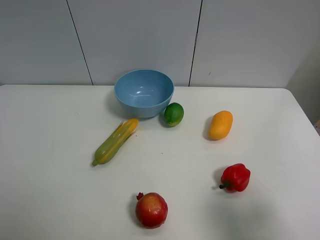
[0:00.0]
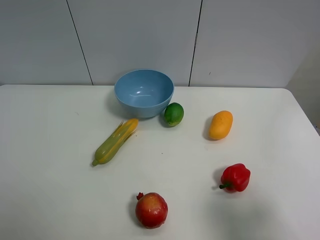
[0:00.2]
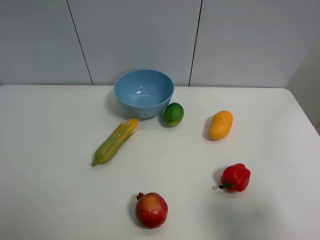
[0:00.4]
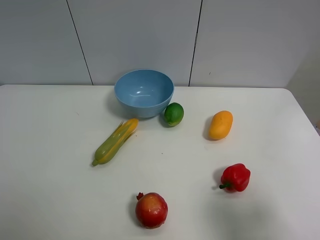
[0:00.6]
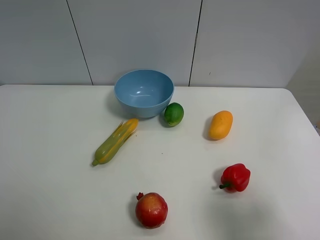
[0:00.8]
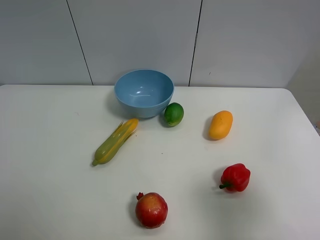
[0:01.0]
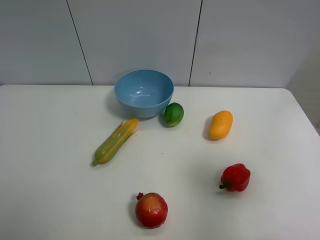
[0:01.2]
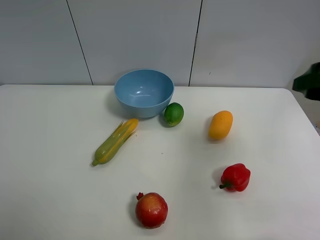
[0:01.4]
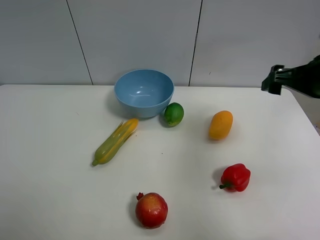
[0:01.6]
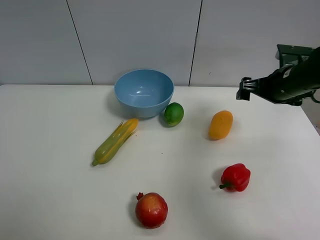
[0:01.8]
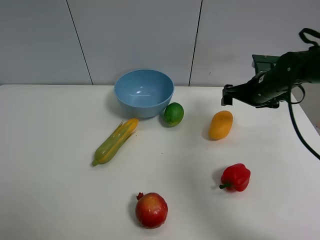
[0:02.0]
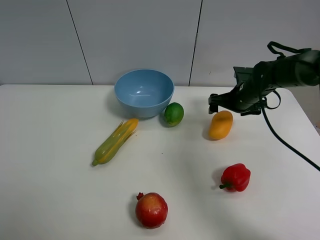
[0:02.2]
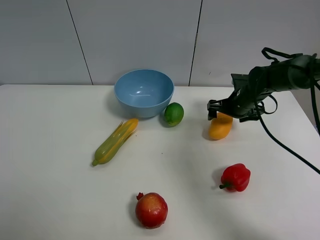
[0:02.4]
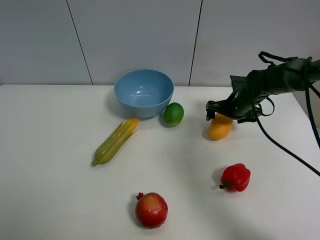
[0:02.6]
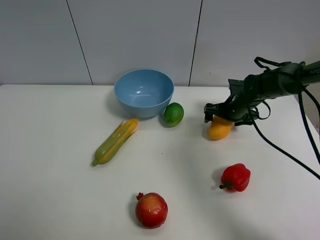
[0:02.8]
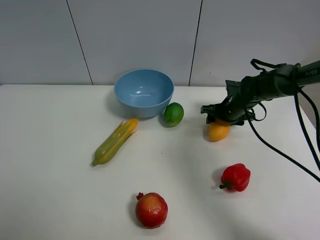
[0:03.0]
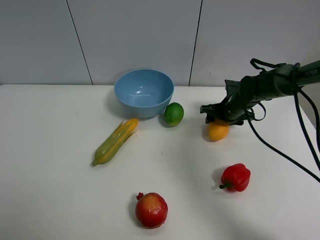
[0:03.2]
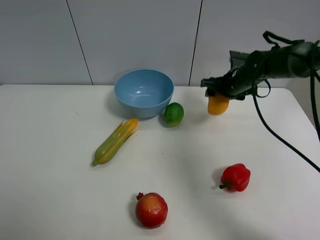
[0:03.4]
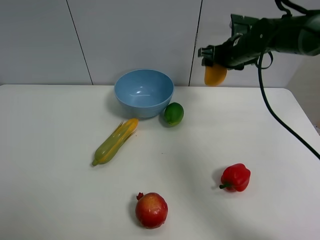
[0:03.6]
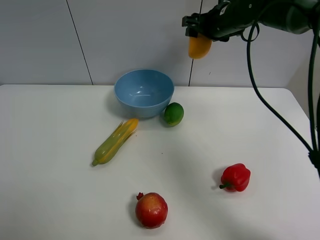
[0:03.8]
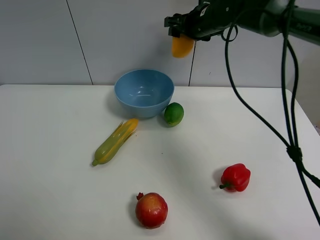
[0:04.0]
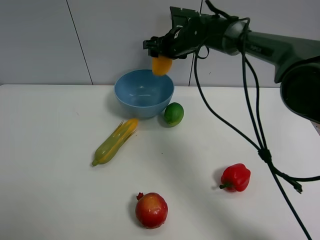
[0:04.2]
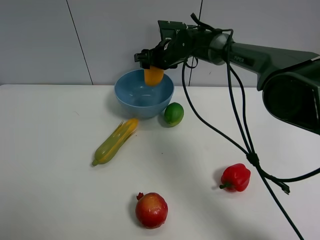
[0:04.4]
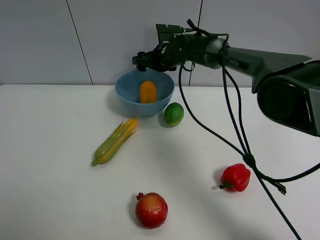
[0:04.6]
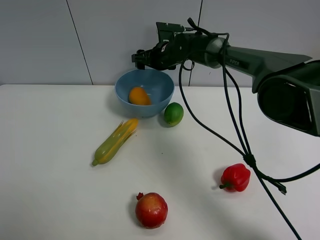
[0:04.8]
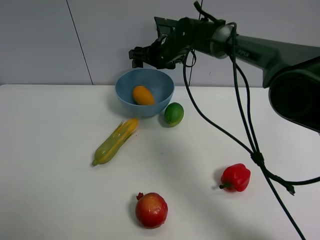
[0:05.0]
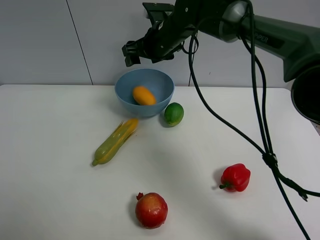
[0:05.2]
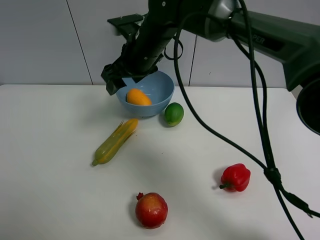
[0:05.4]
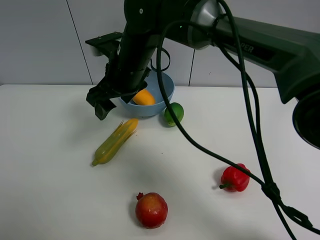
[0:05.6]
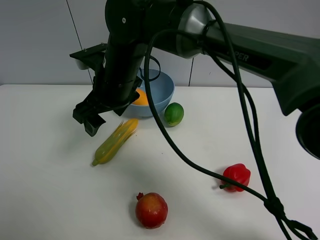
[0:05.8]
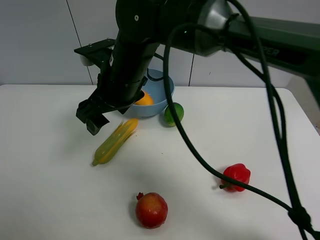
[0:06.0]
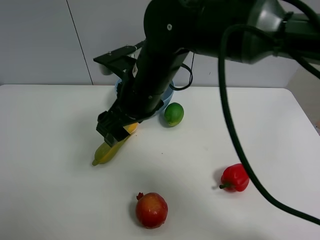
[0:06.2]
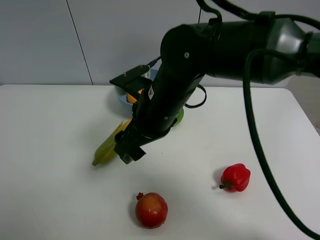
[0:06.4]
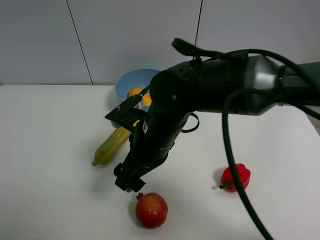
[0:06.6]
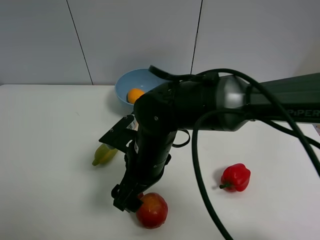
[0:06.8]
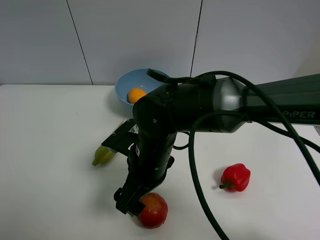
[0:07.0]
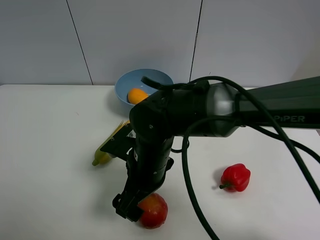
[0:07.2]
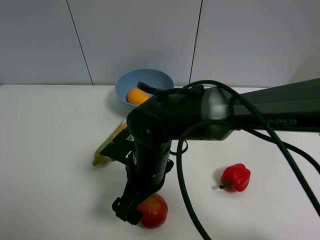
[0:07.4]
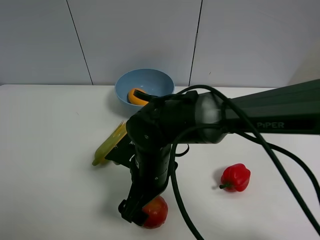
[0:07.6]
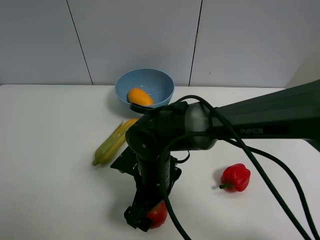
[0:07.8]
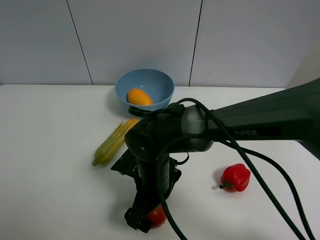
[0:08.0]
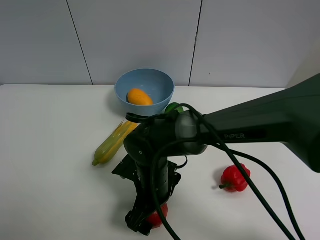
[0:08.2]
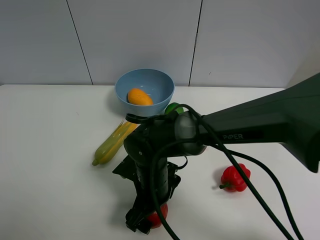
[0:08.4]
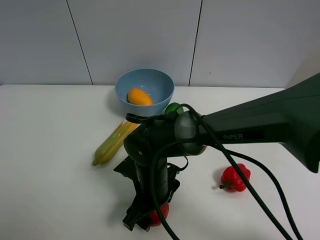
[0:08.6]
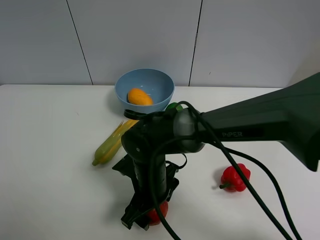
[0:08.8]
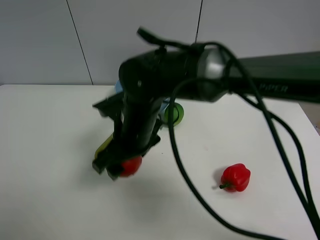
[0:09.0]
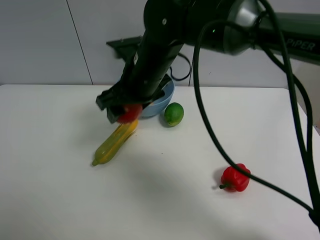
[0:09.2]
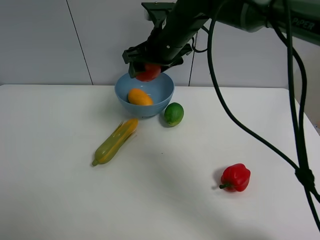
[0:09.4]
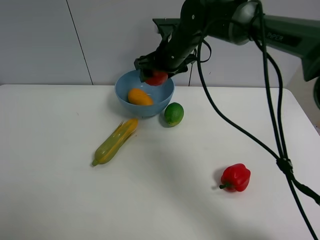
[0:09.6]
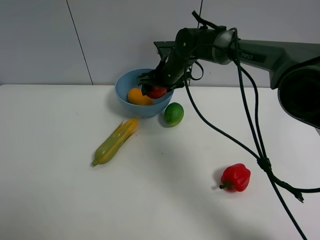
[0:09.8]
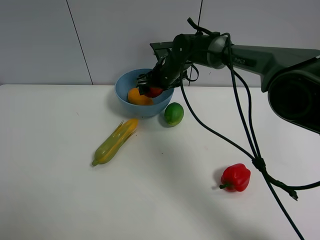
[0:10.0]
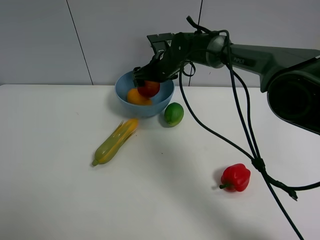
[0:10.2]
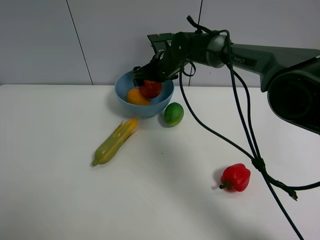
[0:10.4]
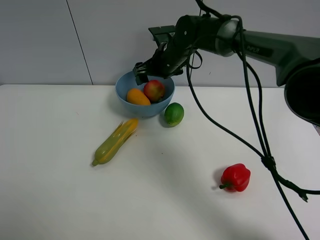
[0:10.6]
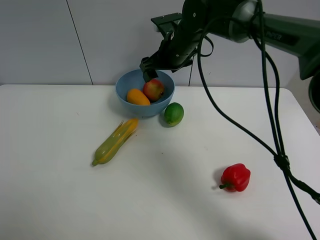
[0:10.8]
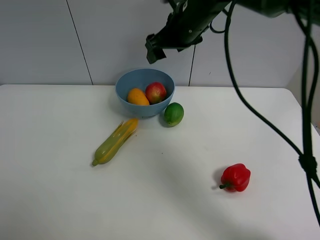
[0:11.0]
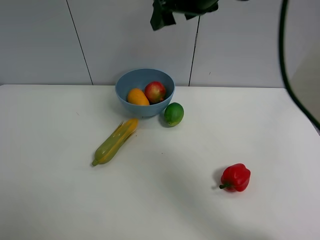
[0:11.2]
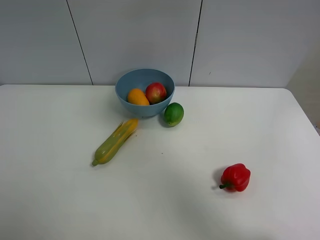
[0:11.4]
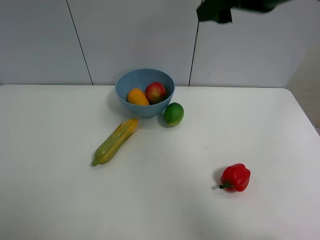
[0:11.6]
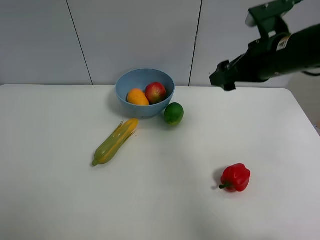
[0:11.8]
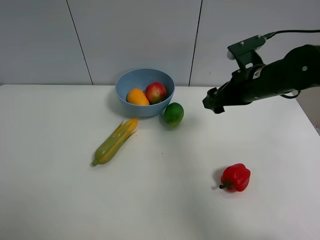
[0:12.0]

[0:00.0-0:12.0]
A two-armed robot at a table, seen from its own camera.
Task of the whole recording: Put the three fruits on the table into a bowl.
Step, 0:00.0 to 0:03.0: Grasp the mango with right gripper.
Step, 0:03.2 to 0:04.6: Place the mango in the blue bowl with right gripper.
Step, 0:04.8 to 0:08.4: Grasp the pomegranate with right gripper.
Step, 0:08.6 to 0:10.4: Place the pomegranate in the blue bowl with right gripper.
0:00.0 to 0:01.6: The right gripper travels forward by about 25 cm.
0:01.6 to 0:03.0: The right gripper is displaced downward and forward by about 20 cm, and closes its fingers.
0:03.0 to 0:04.4: The right gripper is displaced to the left, upward and forward by roughly 20 cm.
0:04.4 to 0:06.0: The right gripper is displaced backward by roughly 20 cm, and opens up.
0:06.0 to 0:07.6: The right gripper shifts roughly 15 cm downward and backward, and opens up.
0:07.6 to 0:09.0: The right gripper is displaced upward and forward by some 10 cm, and closes up.
0:09.0 to 0:10.4: The right gripper heads forward, covering approximately 20 cm.
0:10.4 to 0:12.0: The right gripper moves to the right and backward, about 20 cm, and travels upward and back again, roughly 25 cm each way.

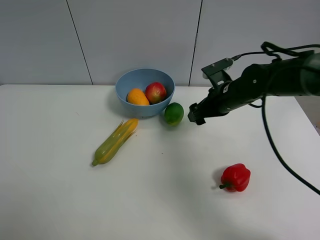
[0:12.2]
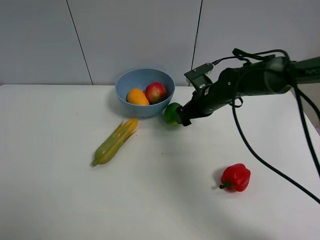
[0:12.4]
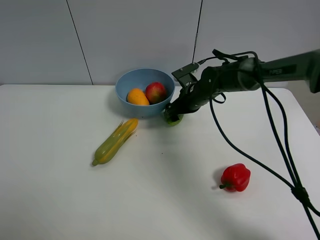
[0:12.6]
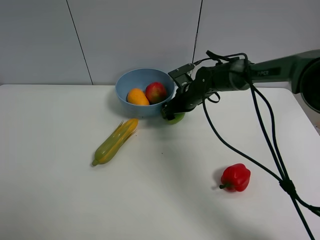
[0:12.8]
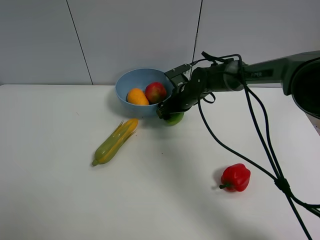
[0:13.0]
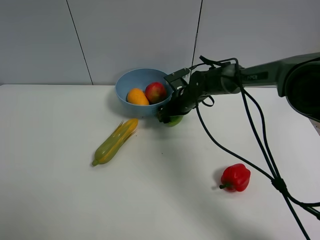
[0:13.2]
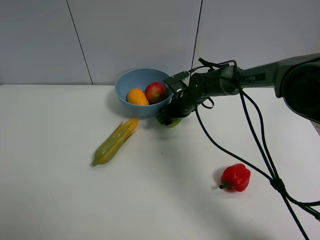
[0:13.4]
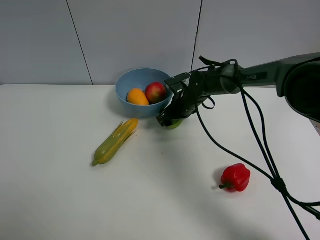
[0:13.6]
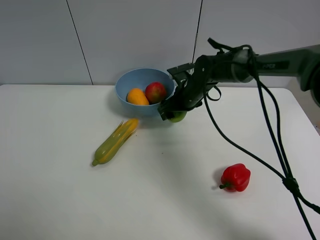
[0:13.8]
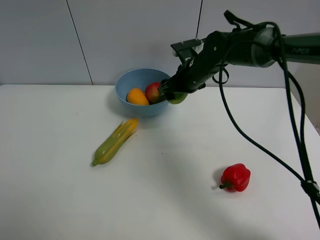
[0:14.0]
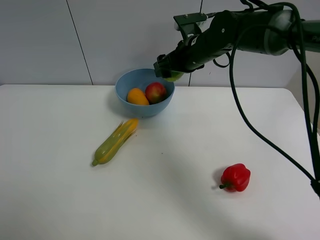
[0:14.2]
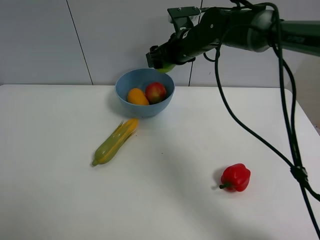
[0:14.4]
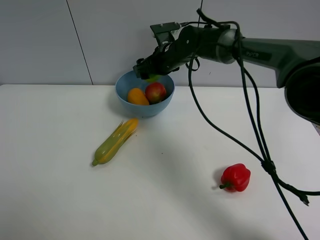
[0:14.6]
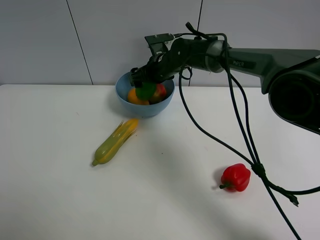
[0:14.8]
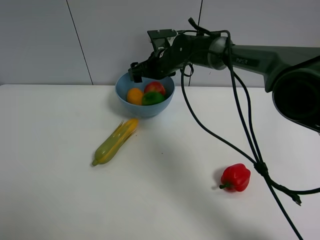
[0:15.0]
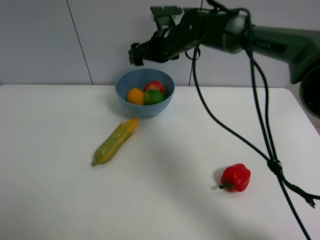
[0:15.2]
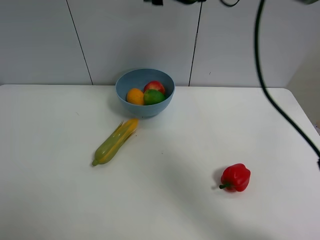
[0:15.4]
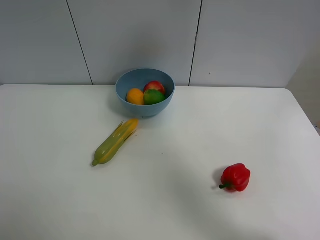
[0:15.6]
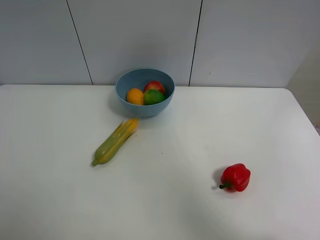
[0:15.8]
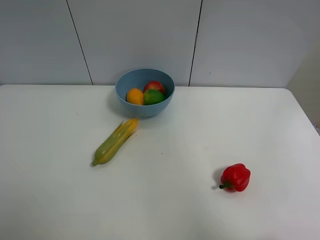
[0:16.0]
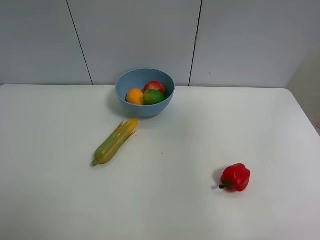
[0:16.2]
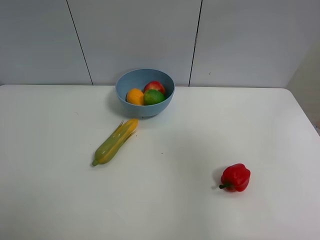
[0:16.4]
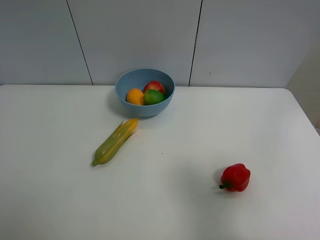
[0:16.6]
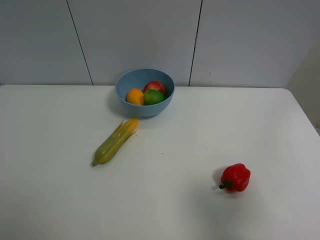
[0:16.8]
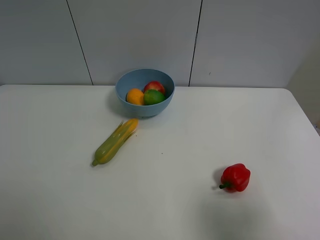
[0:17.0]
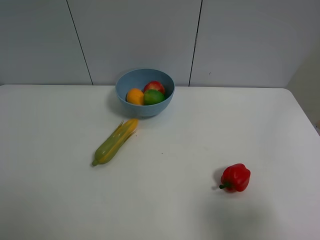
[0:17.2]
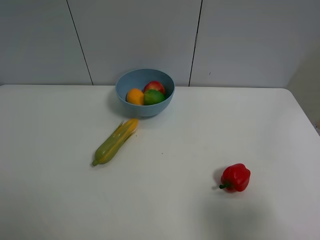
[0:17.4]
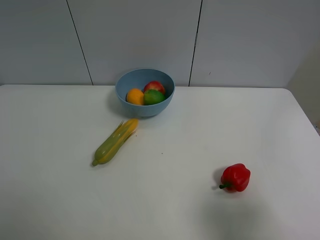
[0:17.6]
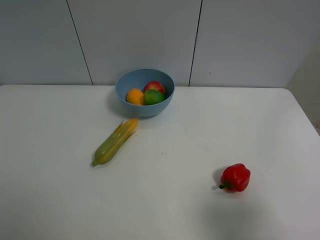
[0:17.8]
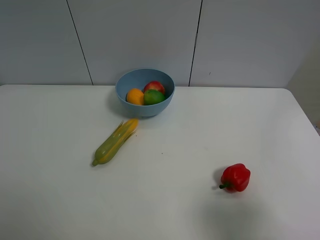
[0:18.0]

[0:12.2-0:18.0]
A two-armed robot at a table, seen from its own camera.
Task of the whole recording: Put the three fruits on the table into a bowl.
Step, 0:13.6 to 0:15.0: Place the green lemon in the blue bowl with right gripper.
0:12.2 to 0:13.6: The right gripper goes about 10 cm to the left, downward and forward.
0:13.6 to 0:15.0: The right gripper moves upward and to the left, approximately 10 cm.
0:15.0 to 0:16.6: The right gripper moves backward and to the right, approximately 50 cm.
0:16.6 to 0:18.0: The right gripper is displaced downward by approximately 5 cm.
